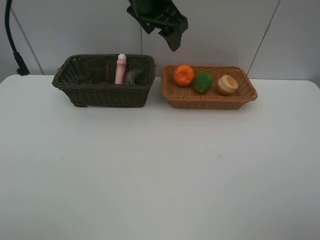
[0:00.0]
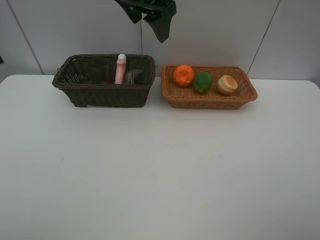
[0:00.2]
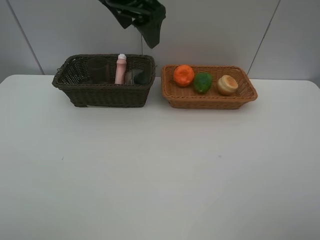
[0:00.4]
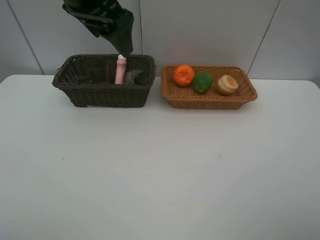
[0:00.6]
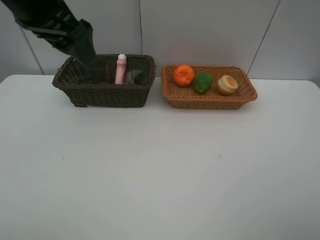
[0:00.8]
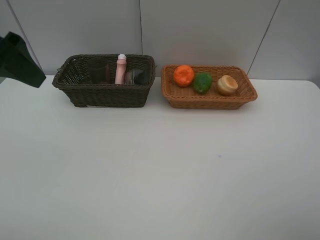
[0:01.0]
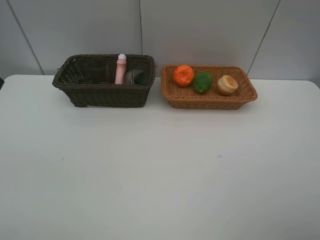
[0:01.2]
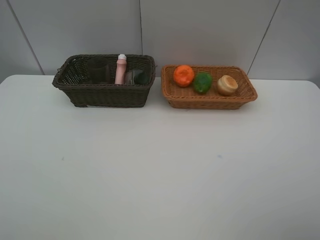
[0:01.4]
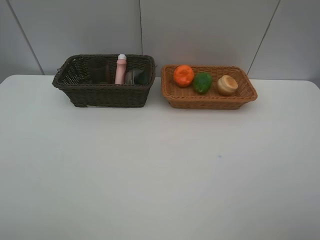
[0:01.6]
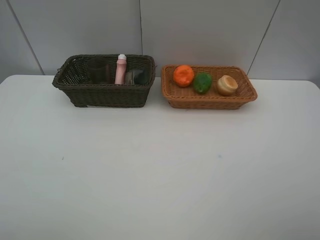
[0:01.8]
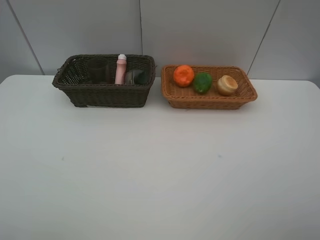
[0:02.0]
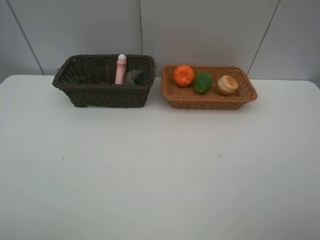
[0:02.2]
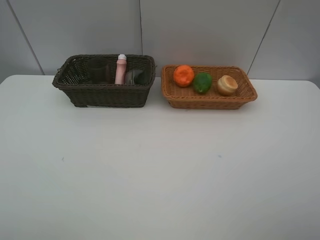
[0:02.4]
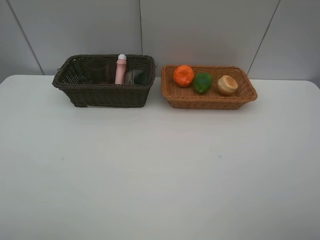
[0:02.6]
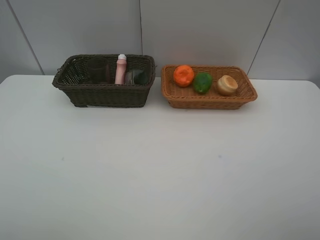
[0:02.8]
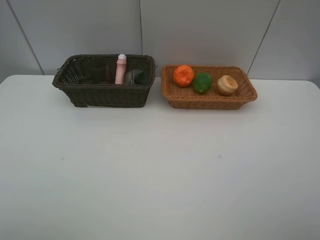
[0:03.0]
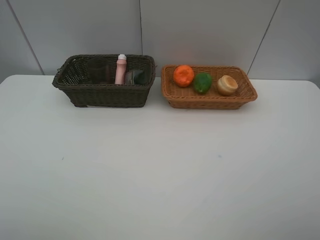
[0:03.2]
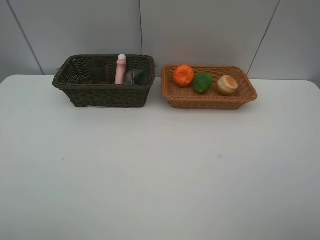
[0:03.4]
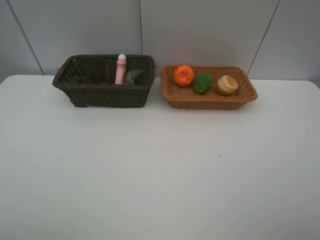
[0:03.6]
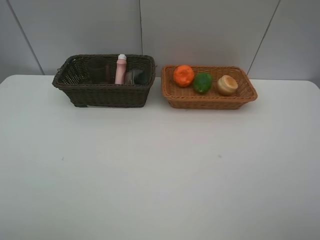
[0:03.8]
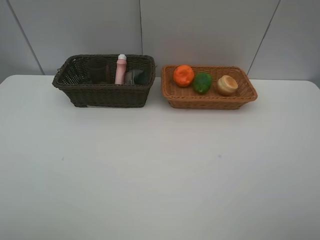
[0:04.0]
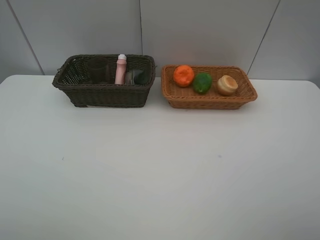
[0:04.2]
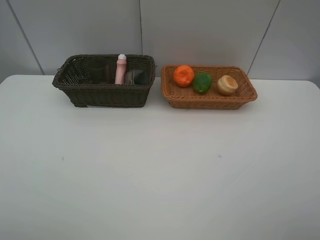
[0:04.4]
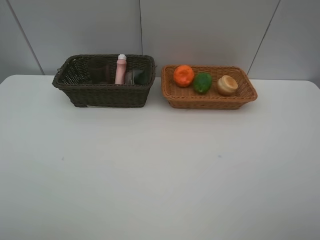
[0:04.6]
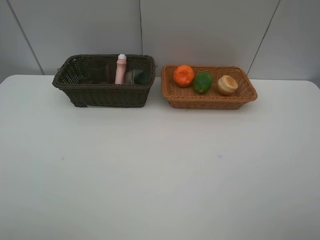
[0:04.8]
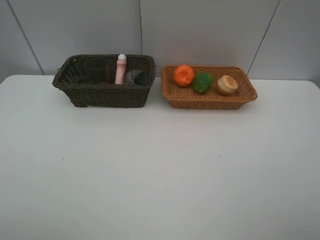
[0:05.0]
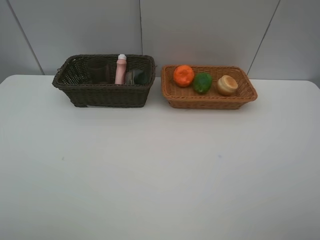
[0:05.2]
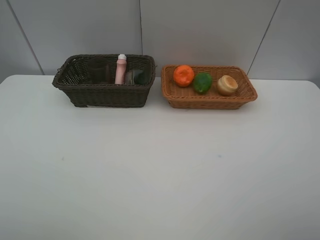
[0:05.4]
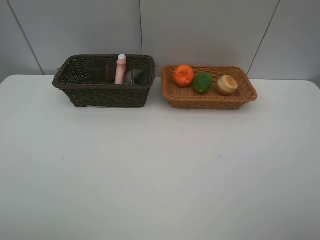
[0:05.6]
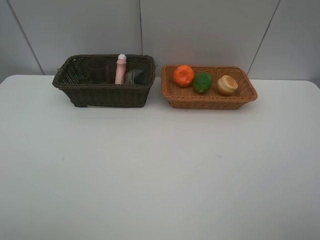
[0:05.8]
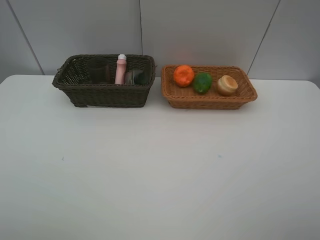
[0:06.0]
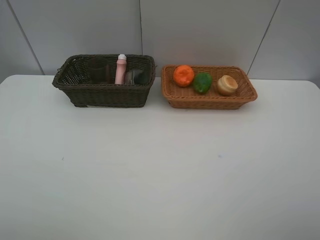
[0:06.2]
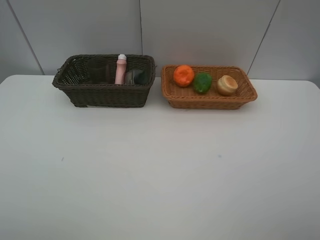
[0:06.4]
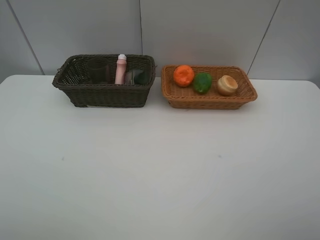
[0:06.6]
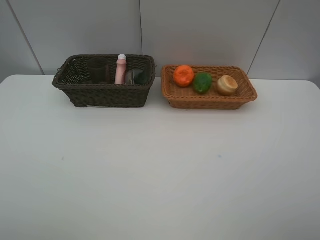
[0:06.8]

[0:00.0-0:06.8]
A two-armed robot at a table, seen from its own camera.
Task of the whole recording: place multiple objects separately in different baskets.
0.0 to 1.4 s: The left gripper shifts approximately 40 cm backward and to the left.
5.4 to 6.8 s: The two grippers keep their place.

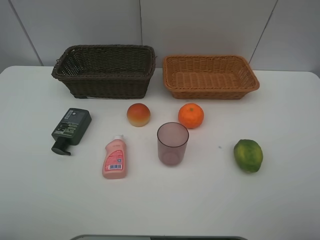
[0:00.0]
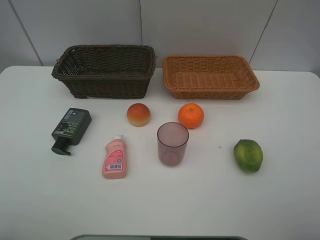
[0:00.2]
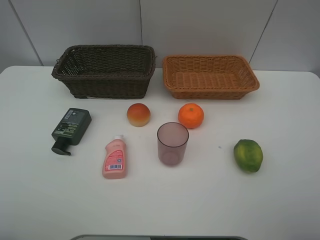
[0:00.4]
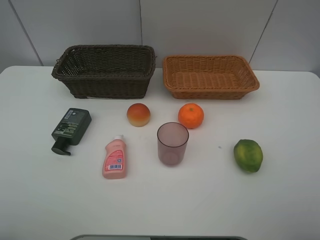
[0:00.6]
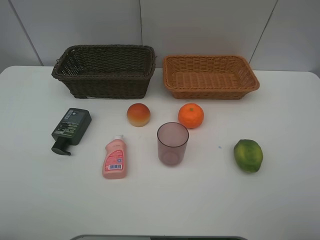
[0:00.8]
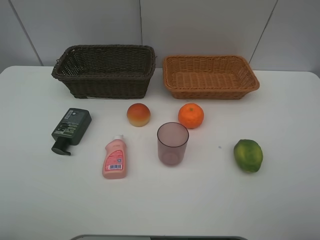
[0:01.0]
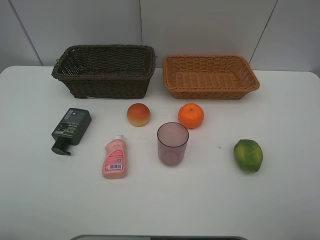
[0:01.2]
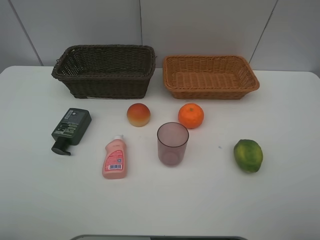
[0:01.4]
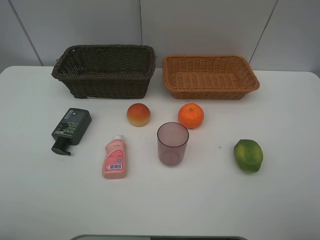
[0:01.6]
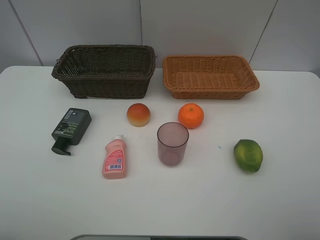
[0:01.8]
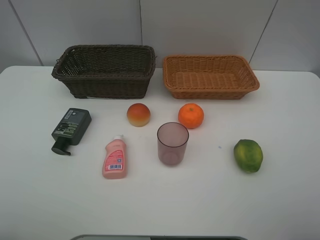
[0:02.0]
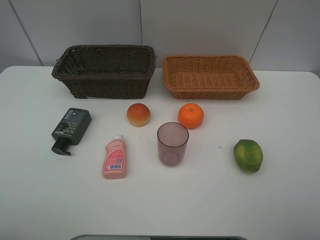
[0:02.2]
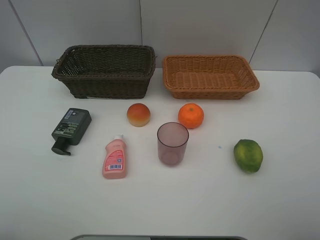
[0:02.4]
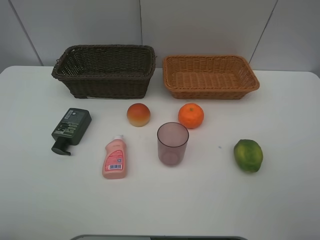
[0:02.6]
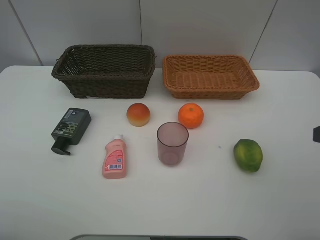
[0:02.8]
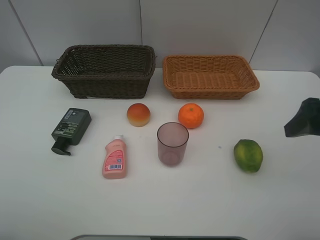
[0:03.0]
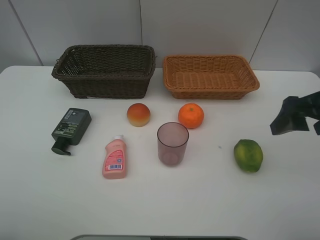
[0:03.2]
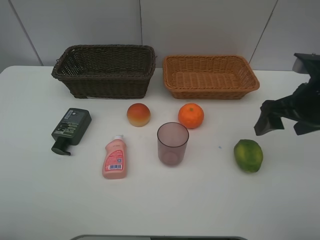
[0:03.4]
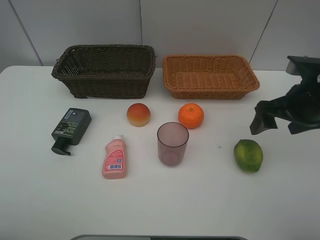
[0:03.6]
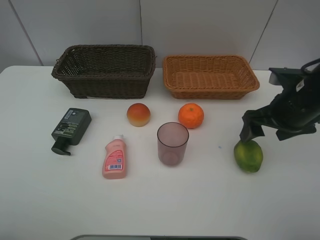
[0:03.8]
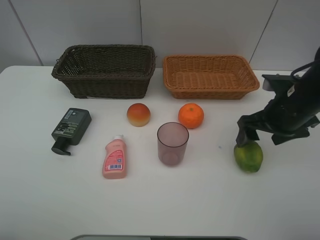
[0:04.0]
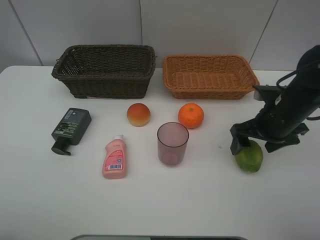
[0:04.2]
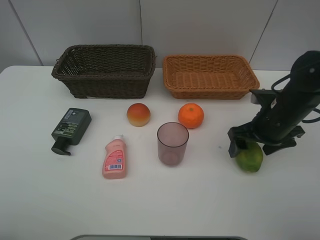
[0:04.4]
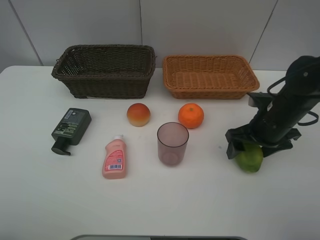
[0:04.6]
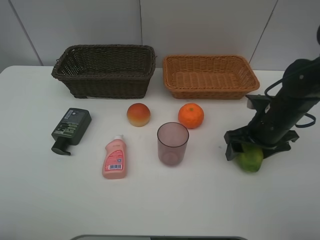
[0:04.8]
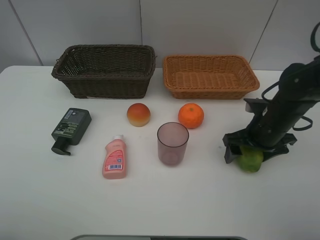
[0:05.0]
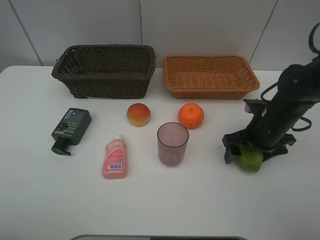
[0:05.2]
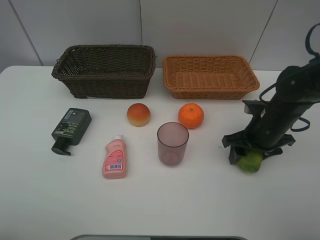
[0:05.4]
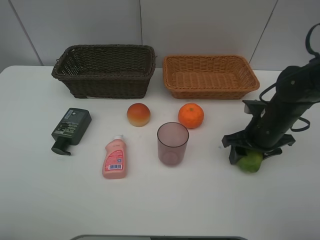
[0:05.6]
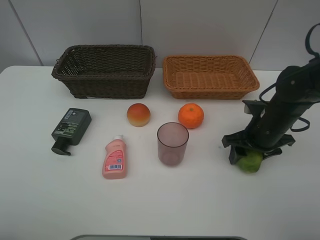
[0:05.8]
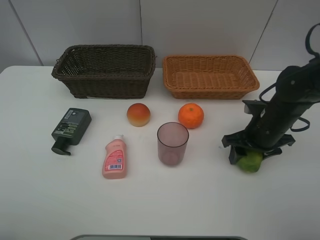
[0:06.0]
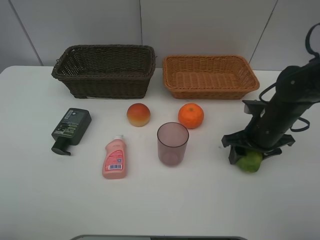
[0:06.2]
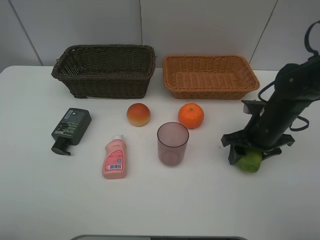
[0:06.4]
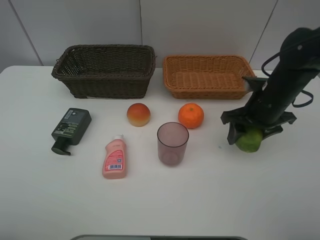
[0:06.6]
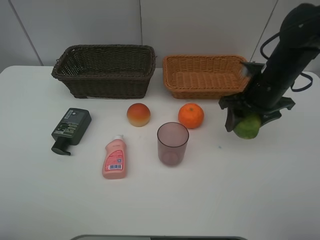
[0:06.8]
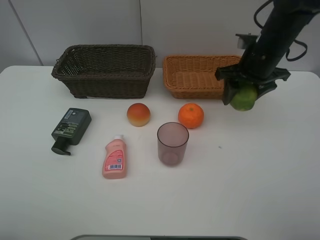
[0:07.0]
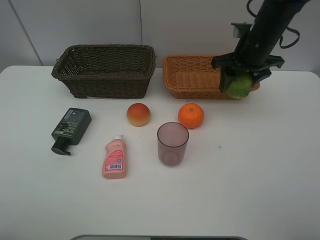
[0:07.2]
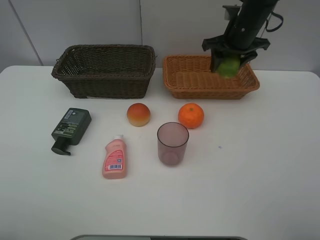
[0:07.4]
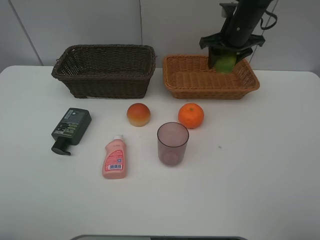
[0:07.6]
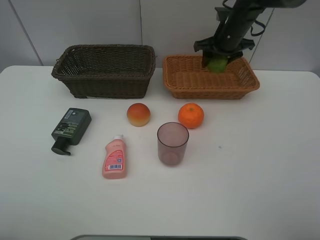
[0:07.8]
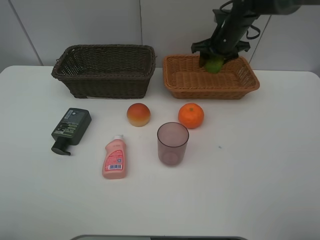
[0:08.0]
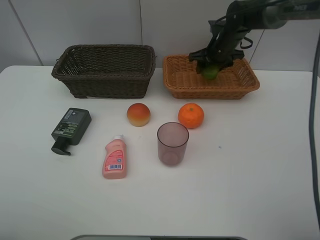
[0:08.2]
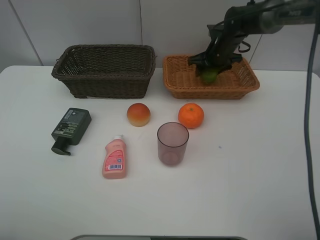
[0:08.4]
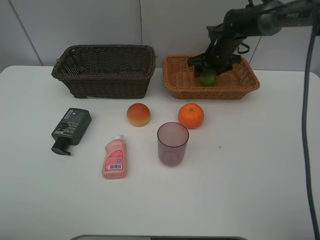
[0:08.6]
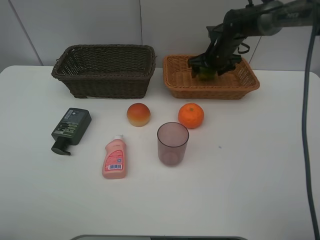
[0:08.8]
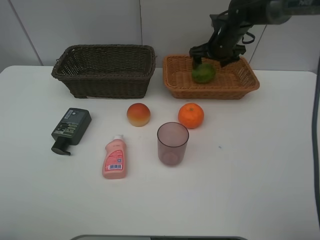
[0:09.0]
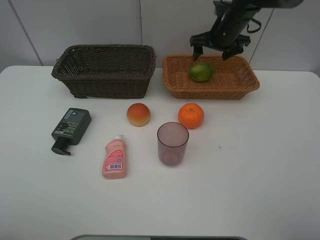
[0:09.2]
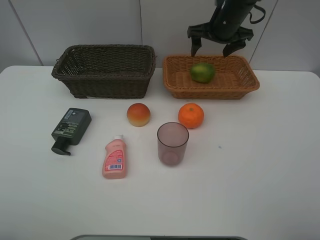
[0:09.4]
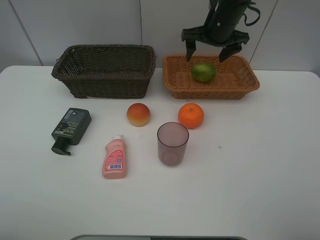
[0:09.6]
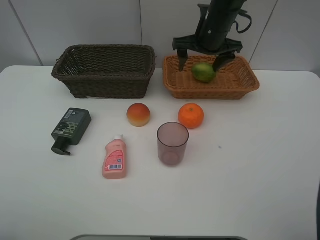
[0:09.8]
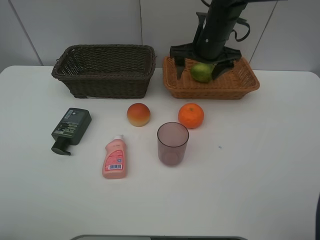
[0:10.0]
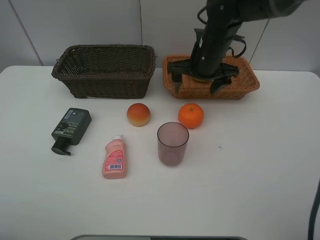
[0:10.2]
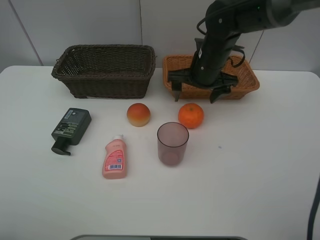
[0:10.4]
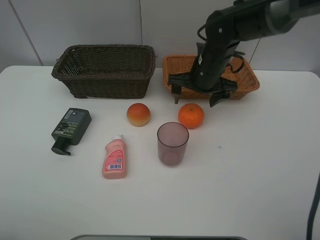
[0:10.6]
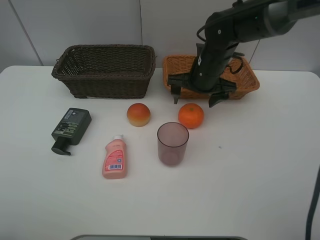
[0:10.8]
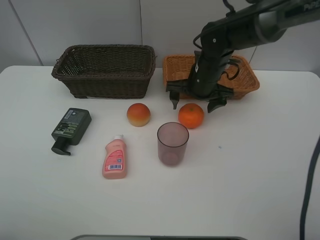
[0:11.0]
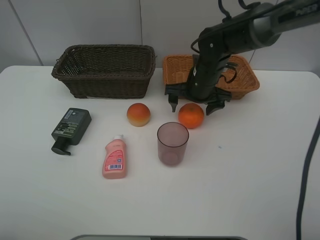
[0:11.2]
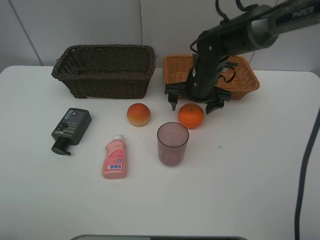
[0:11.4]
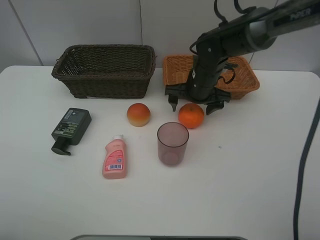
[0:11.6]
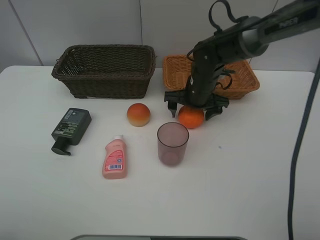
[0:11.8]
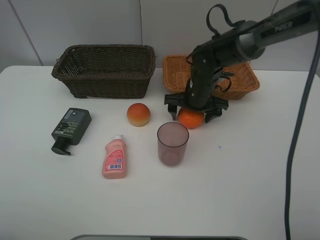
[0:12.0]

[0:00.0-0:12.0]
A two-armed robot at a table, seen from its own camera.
Task of the whole recording: place multiple objects separately in different baskets.
0.0 to 1.6 s: Neither gripper changes place.
1.6 to 3.0 s: The right gripper heads forward, covering about 15 cm.
3.0 to 4.4 s: The right gripper heads downward and forward, covering about 15 cm.
4.4 to 6.0 s: The grippers move only a little.
6.0 to 7.6 s: The right gripper goes roughly 25 cm forward and upward.
7.6 to 9.0 s: The right gripper opens up.
9.0 to 10.4 s: The right gripper heads backward and to the left, covering some 15 cm.
10.4 to 12.0 s: The right gripper moves downward, about 5 cm.

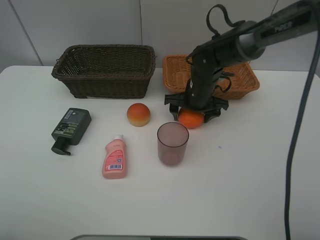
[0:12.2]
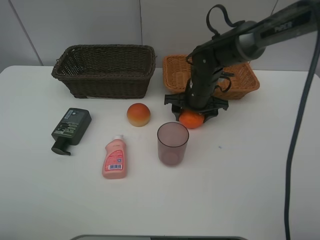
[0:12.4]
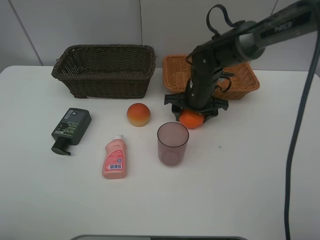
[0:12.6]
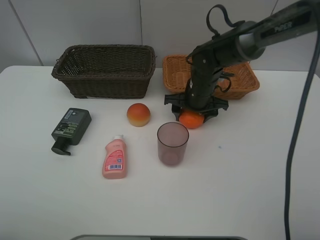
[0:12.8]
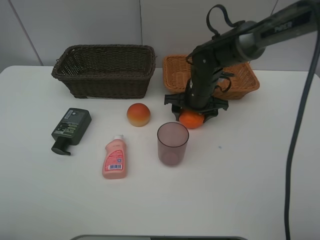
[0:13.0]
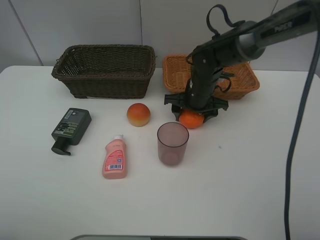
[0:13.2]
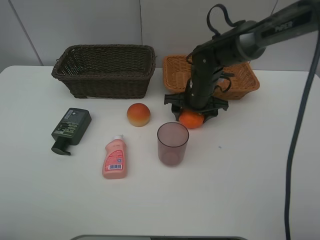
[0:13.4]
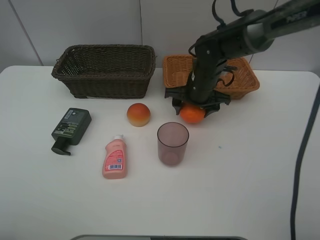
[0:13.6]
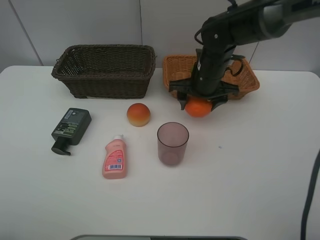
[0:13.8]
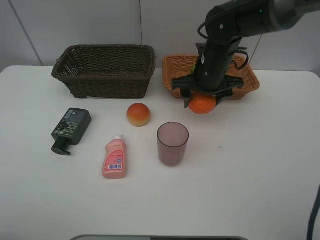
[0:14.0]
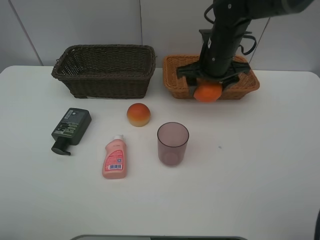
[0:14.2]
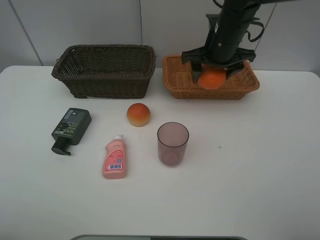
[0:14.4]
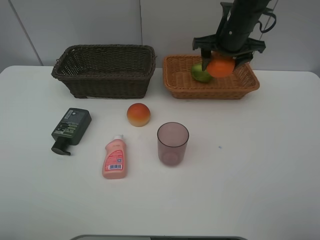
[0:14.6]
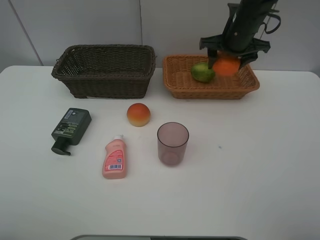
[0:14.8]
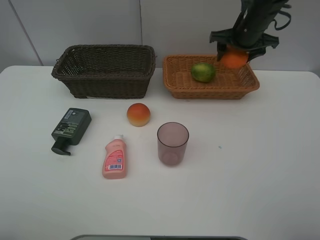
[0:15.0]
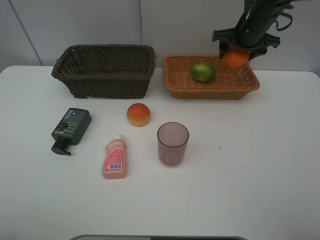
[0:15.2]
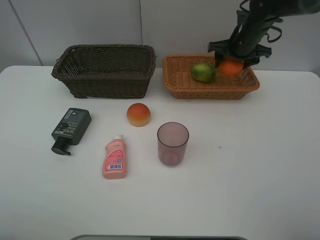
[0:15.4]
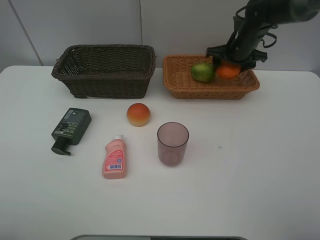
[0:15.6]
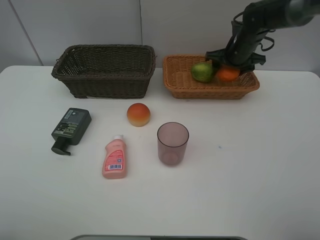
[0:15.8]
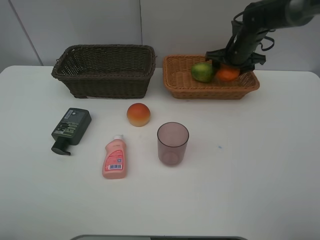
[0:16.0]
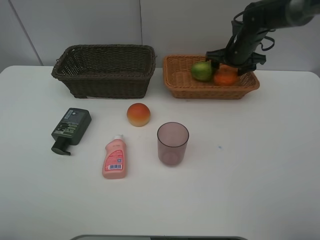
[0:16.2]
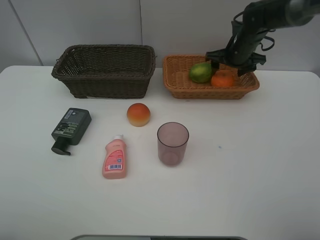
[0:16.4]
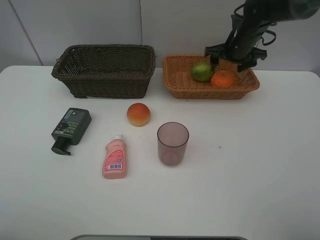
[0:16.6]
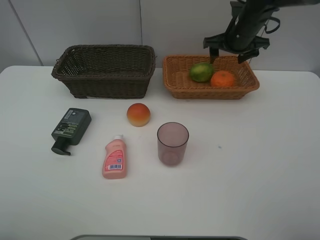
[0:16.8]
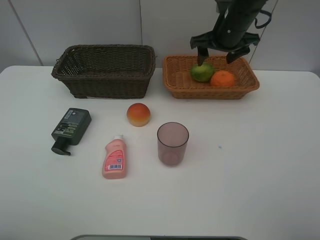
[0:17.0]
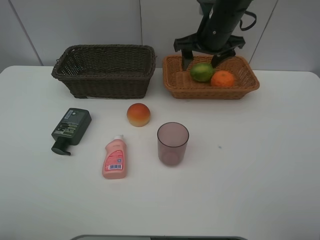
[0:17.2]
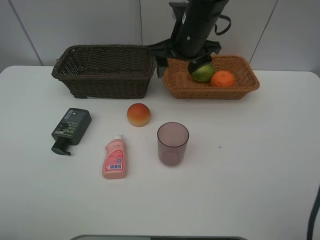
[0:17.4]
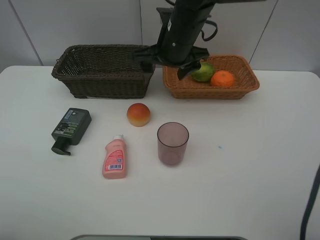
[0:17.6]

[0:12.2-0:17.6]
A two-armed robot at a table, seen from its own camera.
Task of the whole recording: place multiple objects separately in different baskets.
12.2 to 13.6 s: The grippers move only a little.
13.6 to 15.0 s: The right gripper is displaced to the right, upward and forward by some 15 cm.
15.0 to 16.2 s: The right gripper goes some 5 cm downward.
16.2 to 17.6 s: The right gripper moves to the left and backward, roughly 20 cm.
